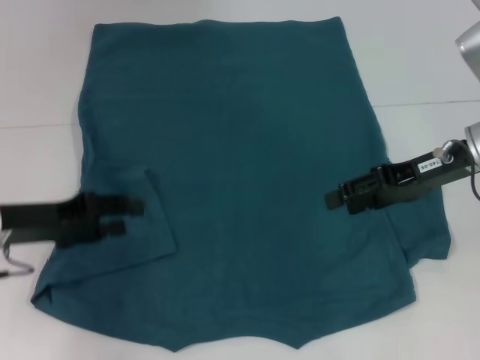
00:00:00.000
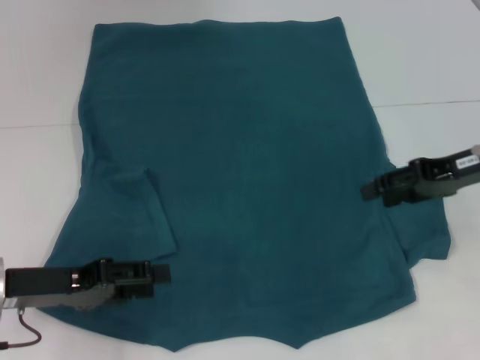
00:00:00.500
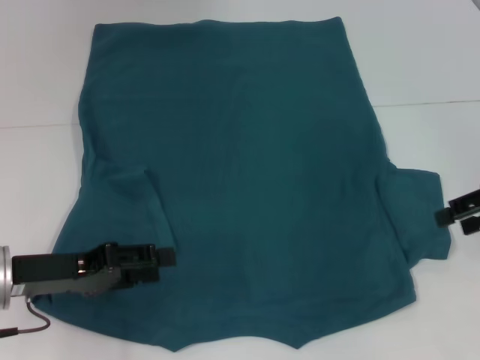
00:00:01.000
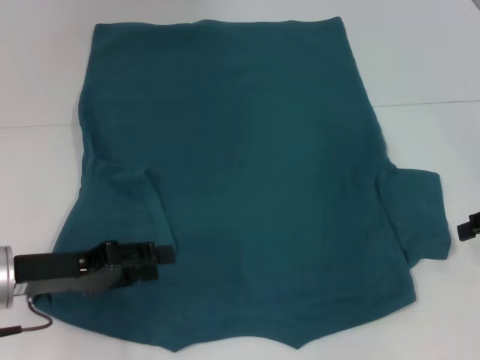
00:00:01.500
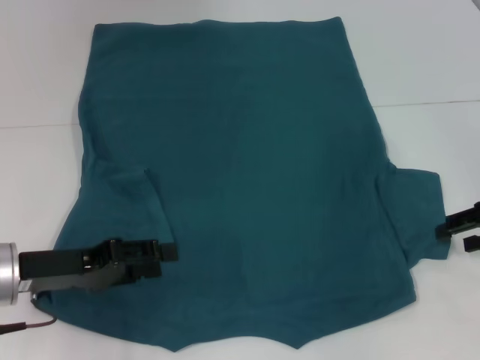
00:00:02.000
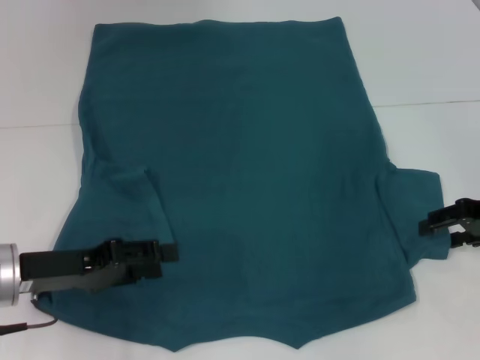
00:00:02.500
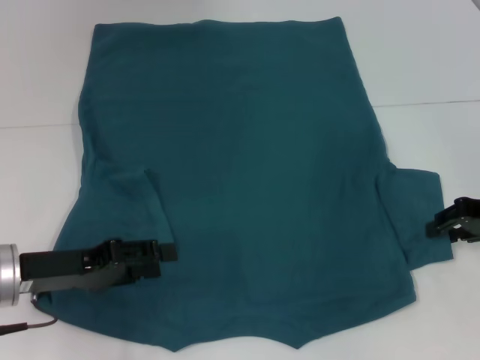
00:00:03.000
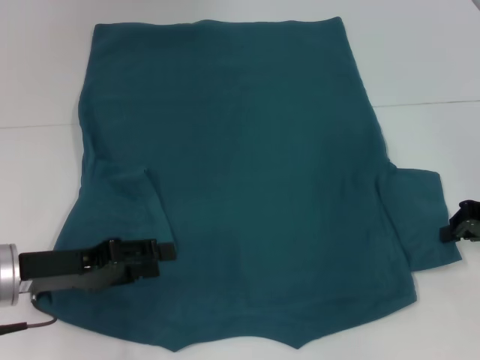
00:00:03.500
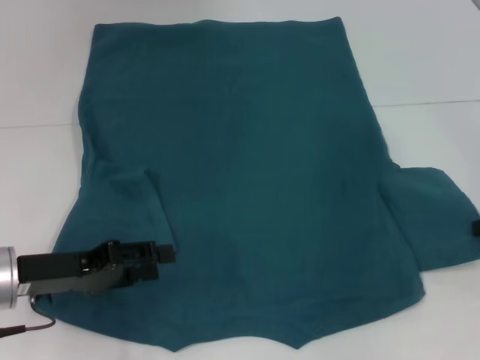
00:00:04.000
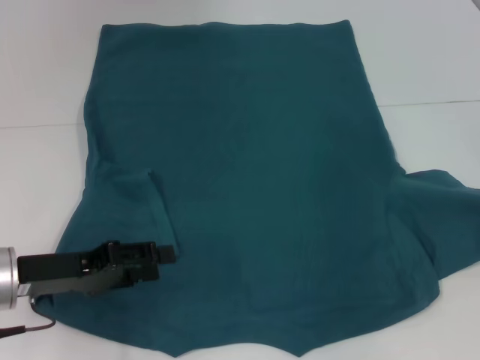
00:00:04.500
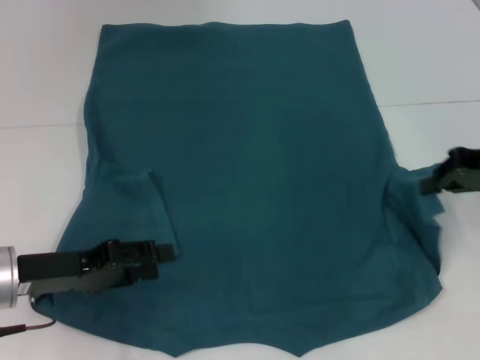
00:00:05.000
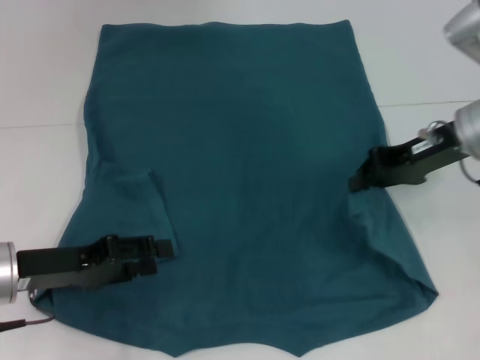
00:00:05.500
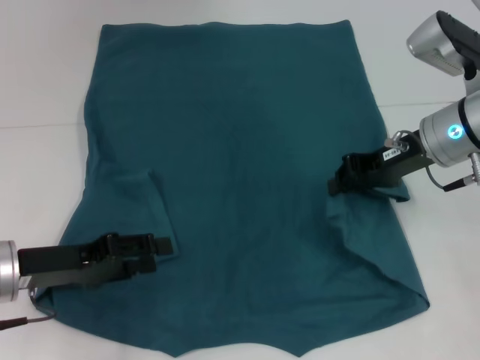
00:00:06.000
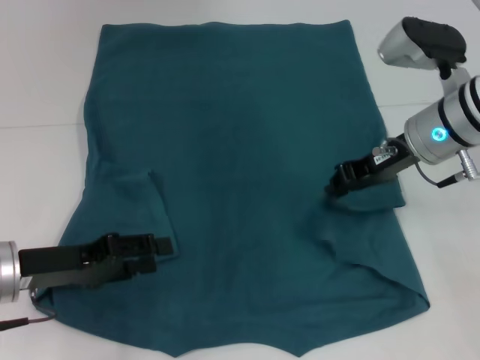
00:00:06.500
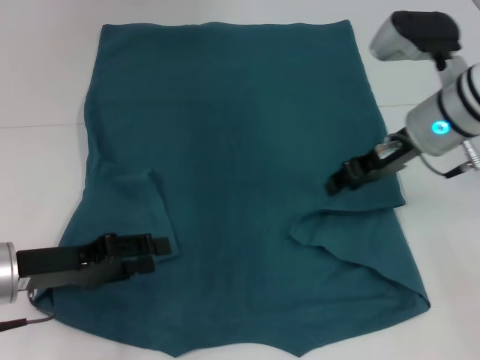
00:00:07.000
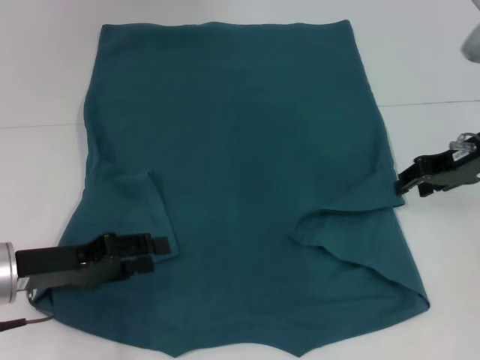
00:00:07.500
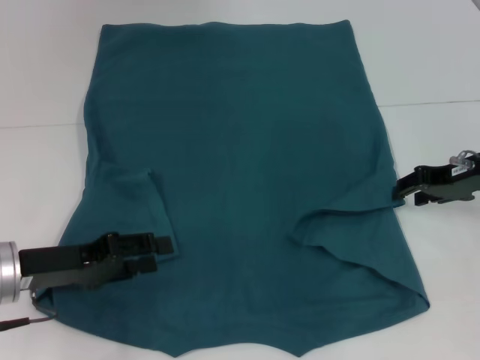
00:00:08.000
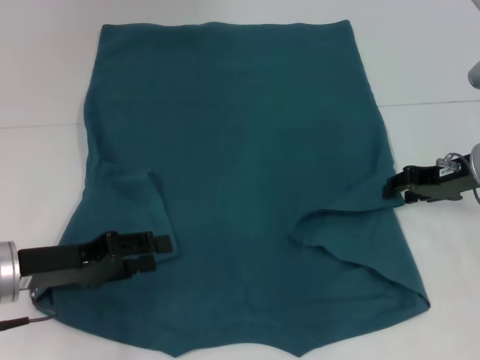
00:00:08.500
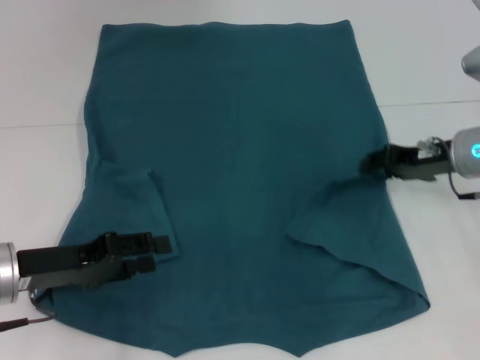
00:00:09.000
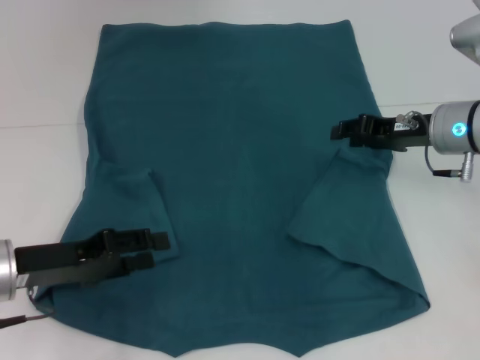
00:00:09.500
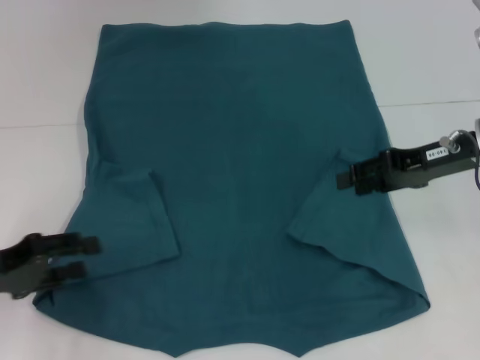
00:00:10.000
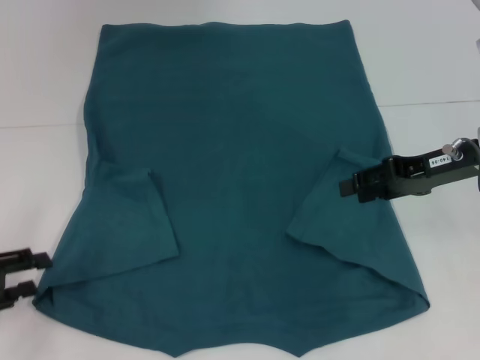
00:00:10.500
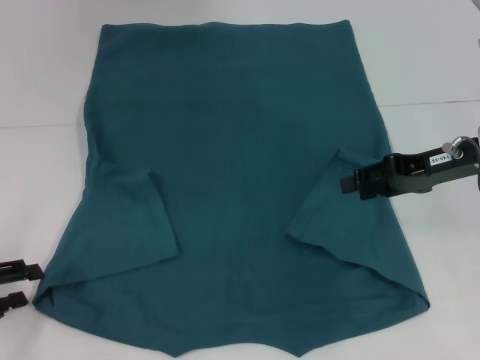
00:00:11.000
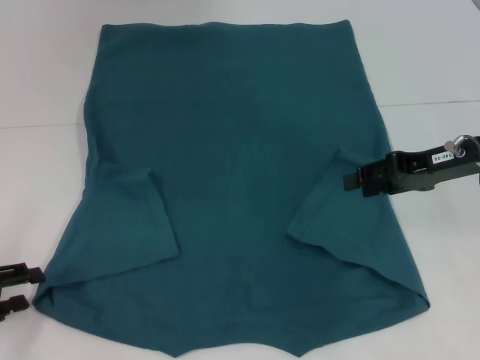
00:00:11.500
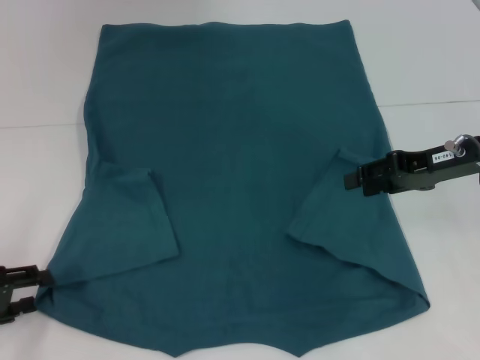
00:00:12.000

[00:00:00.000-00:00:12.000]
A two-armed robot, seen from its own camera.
Step, 00:00:00.500 to 00:00:10.000: Fold the bottom right sleeve to the right.
00:00:00.000 to 00:00:02.000: The right gripper moves to the right, some 10 cm.
00:00:02.000 to 00:00:04.000: The right gripper closes.
00:00:04.000 to 00:00:06.000: The right gripper shifts roughly 15 cm to the left.
00:00:06.000 to 00:00:08.000: The right gripper shifts some 5 cm to the right, and opens its fingers.
00:00:08.000 to 00:00:10.000: The left gripper travels to the left by some 5 cm.
00:00:10.000 to 00:00:12.000: The grippers make only small movements.

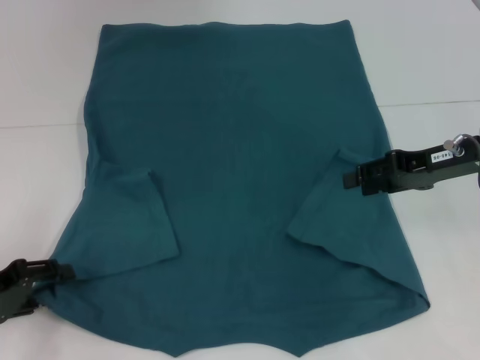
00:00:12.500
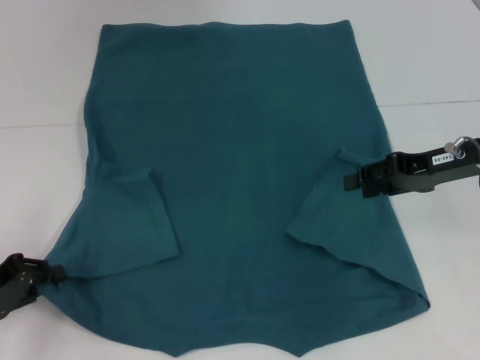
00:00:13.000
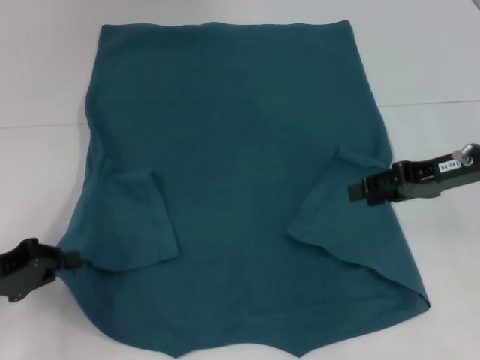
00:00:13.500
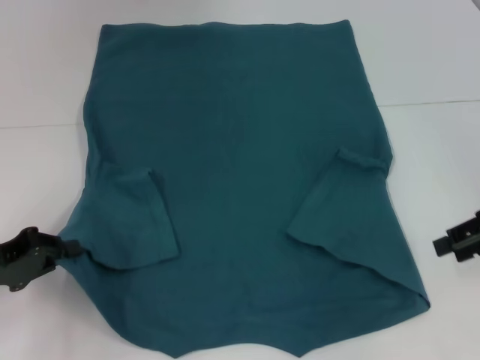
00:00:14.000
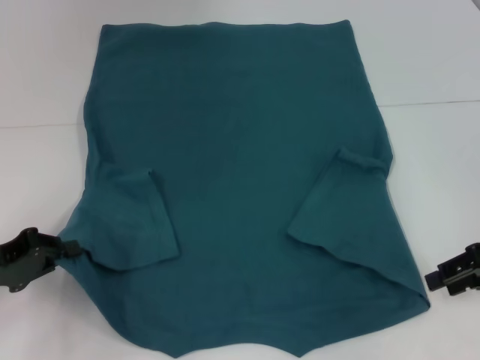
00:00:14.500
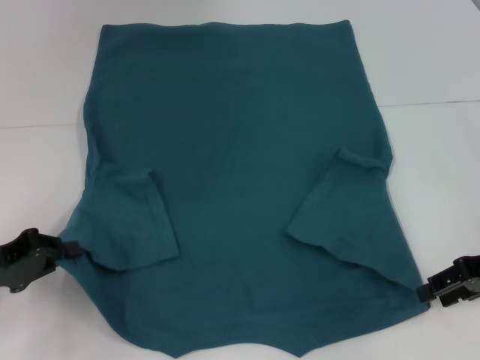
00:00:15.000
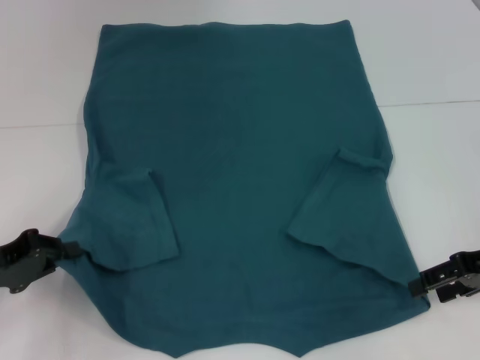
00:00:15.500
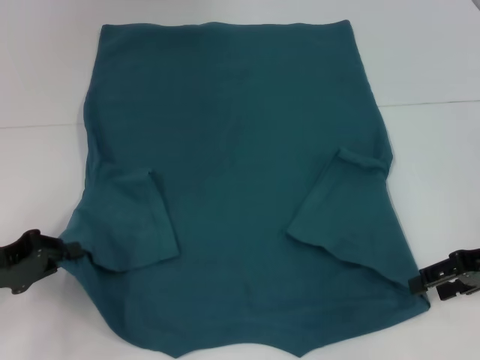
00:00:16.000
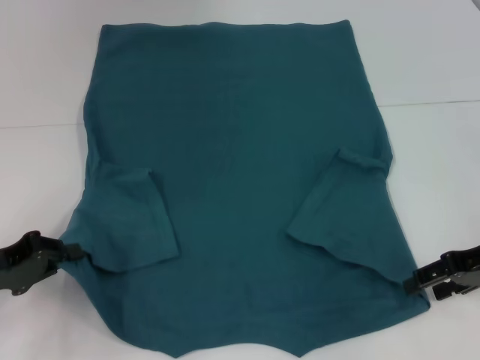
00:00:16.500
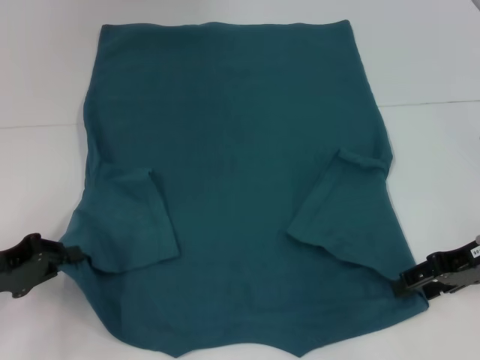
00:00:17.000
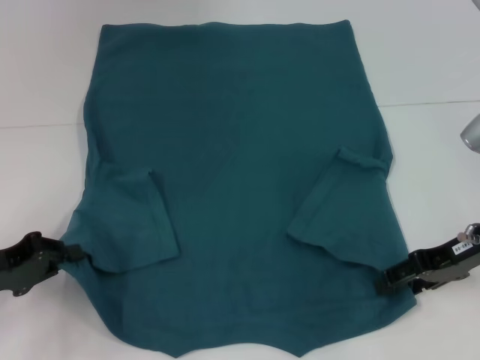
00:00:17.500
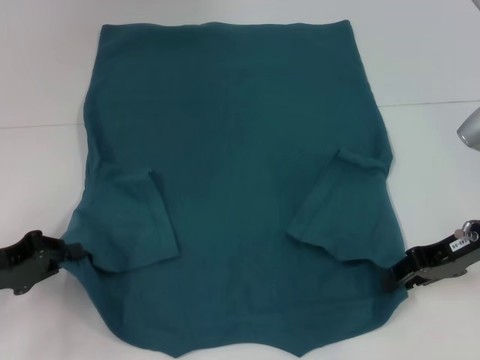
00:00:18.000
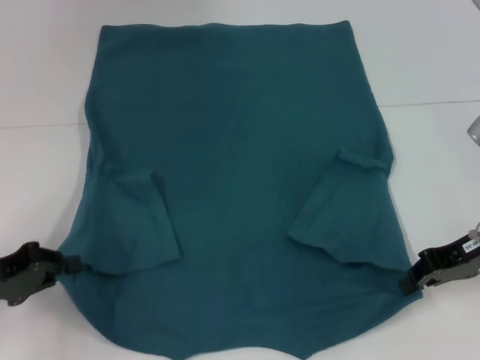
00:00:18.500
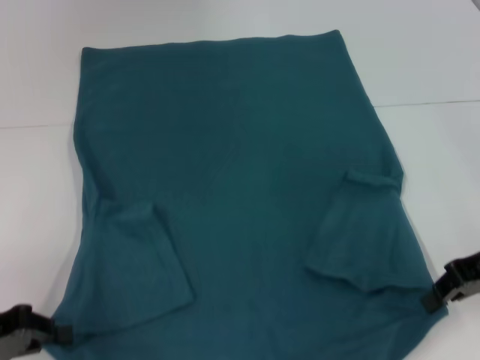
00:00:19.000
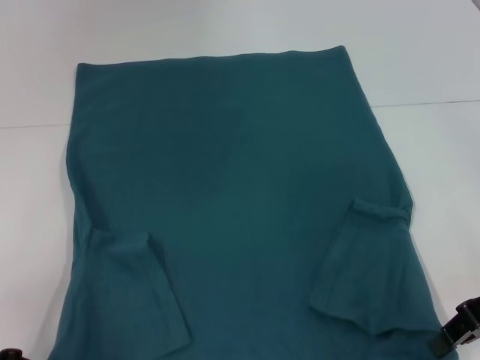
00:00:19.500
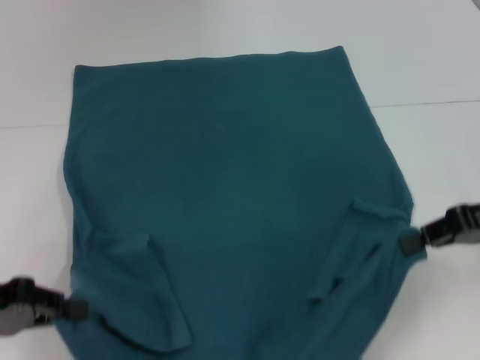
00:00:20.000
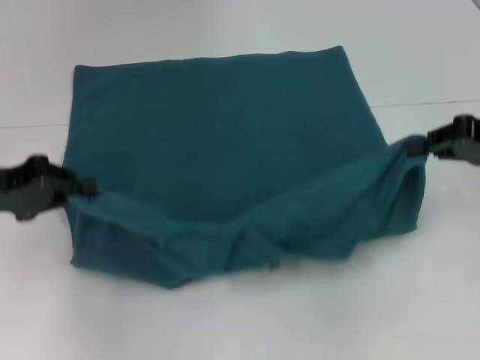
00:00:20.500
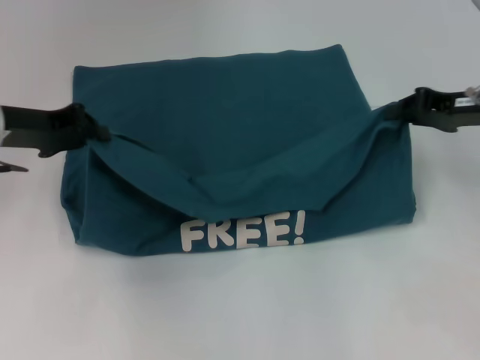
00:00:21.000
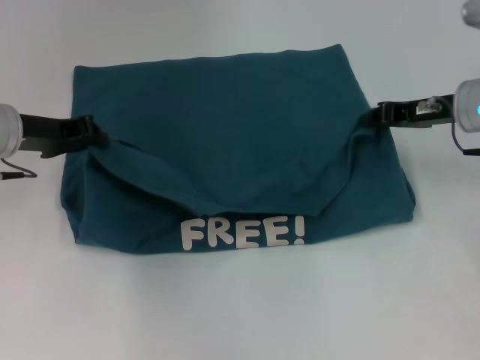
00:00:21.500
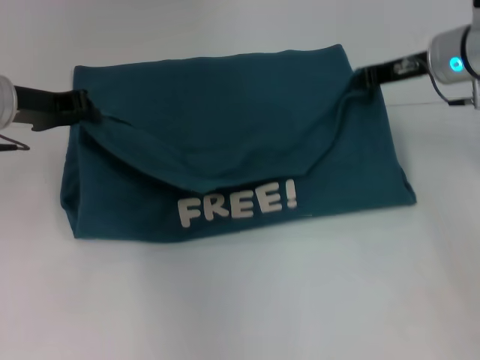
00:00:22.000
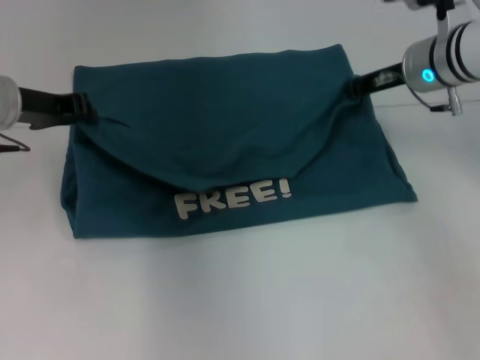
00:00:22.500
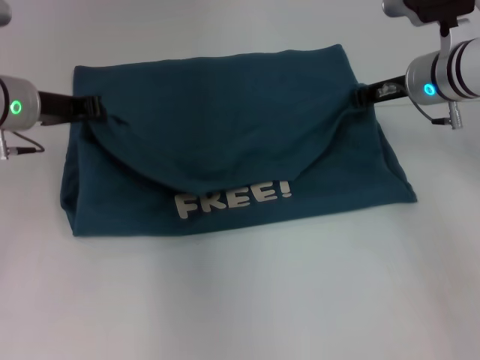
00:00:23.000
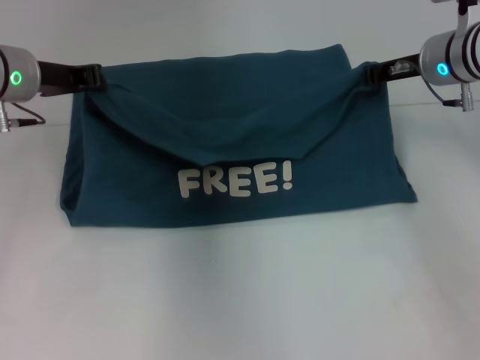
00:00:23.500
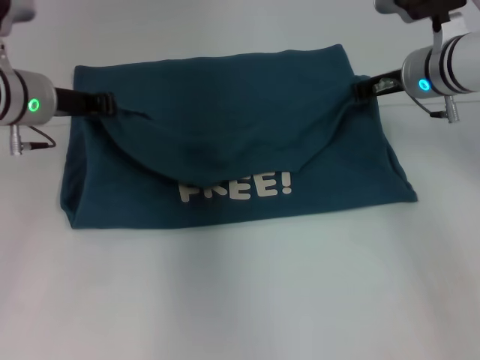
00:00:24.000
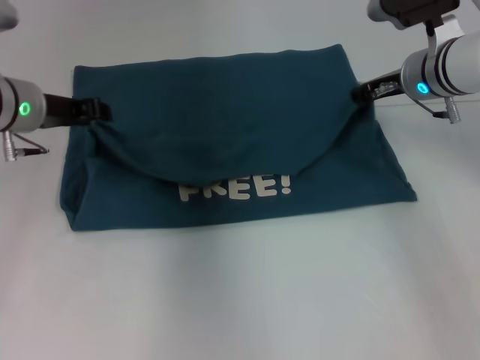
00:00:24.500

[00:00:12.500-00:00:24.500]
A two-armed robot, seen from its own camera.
Step, 00:00:14.500 to 00:00:18.500: Grab the bottom right corner with your right hand.
00:00:12.500 to 00:00:14.500: The right gripper shifts about 10 cm to the right and backward. The left gripper closes its fingers.
00:00:14.500 to 00:00:16.500: The grippers make only small movements.
00:00:16.500 to 00:00:18.500: The right gripper closes up.
00:00:18.500 to 00:00:20.500: The right gripper goes about 5 cm upward. The left gripper moves upward and forward, some 10 cm.
00:00:20.500 to 00:00:22.500: The right gripper heads forward and to the left, covering roughly 15 cm. Meanwhile the left gripper travels forward and to the right by approximately 10 cm.
00:00:22.500 to 00:00:24.500: The grippers make only small movements.

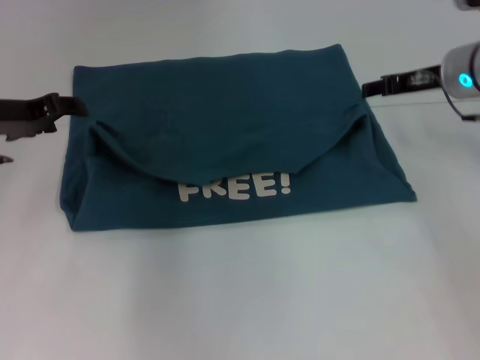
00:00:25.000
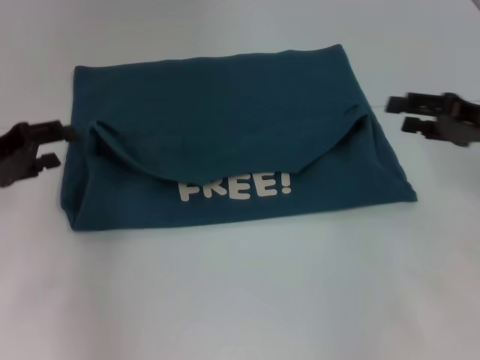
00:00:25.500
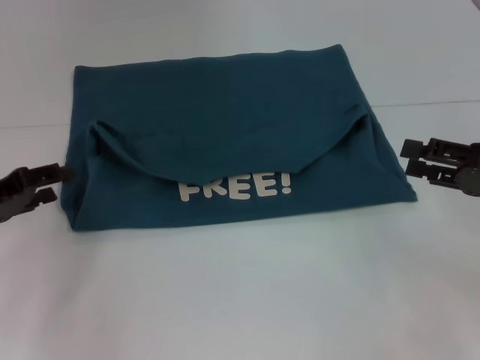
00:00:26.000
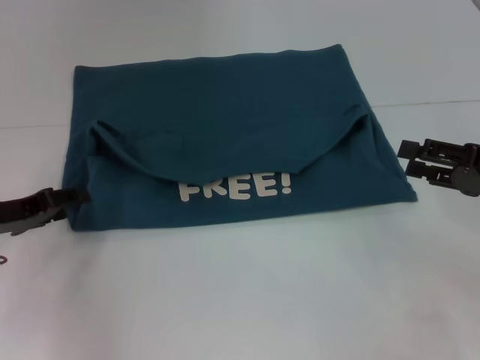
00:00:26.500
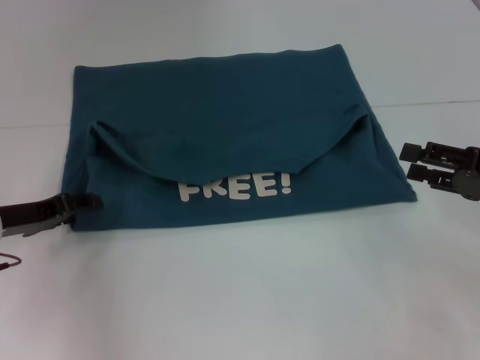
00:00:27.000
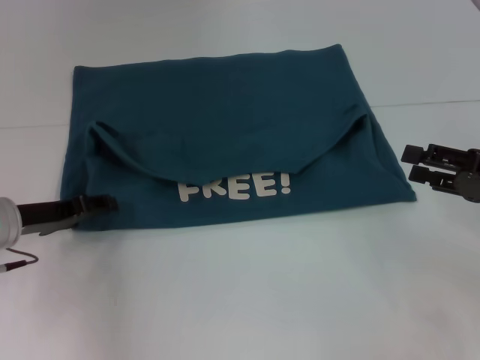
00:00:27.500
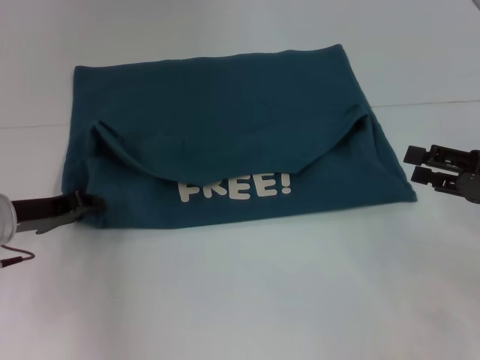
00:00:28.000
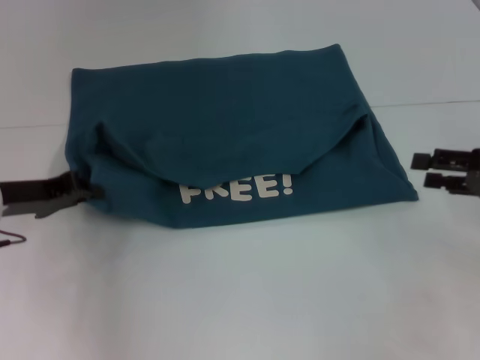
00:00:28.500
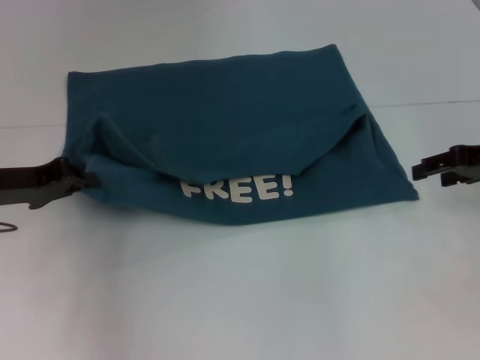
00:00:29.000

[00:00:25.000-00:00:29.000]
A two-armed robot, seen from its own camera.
00:00:25.000 to 00:00:27.000: The right gripper is displaced backward, to the right and downward by some 20 cm. Meanwhile the left gripper travels downward and backward by roughly 10 cm.
00:00:27.000 to 00:00:29.000: The right gripper goes approximately 10 cm forward. Meanwhile the left gripper closes its fingers.
